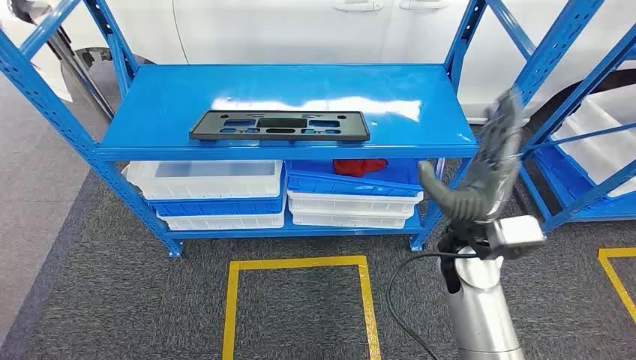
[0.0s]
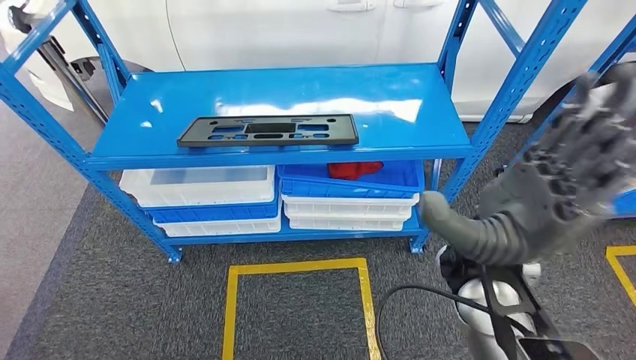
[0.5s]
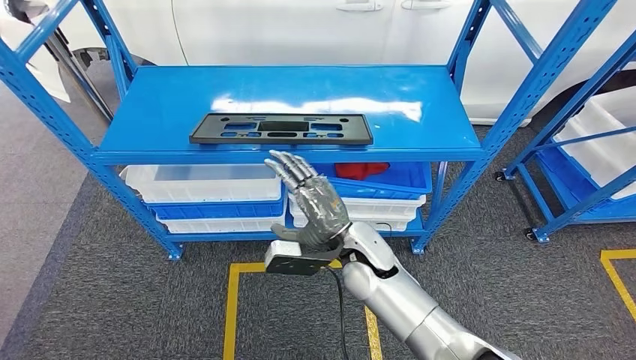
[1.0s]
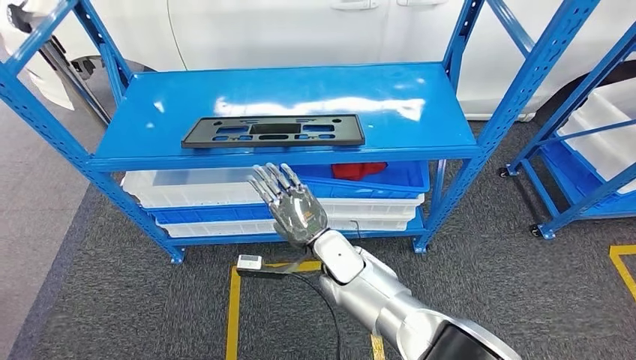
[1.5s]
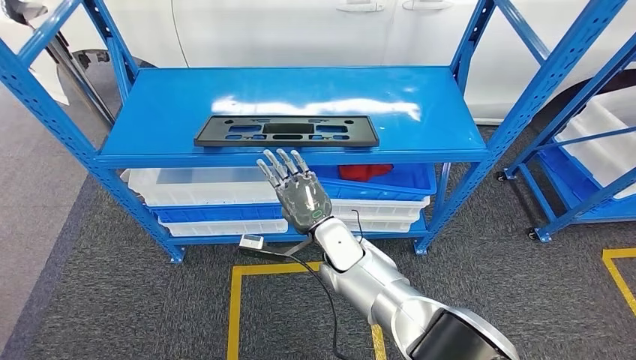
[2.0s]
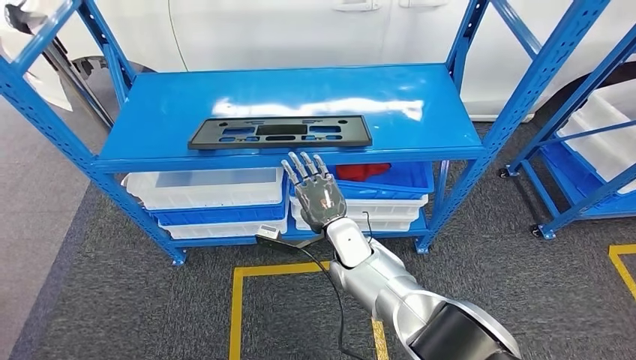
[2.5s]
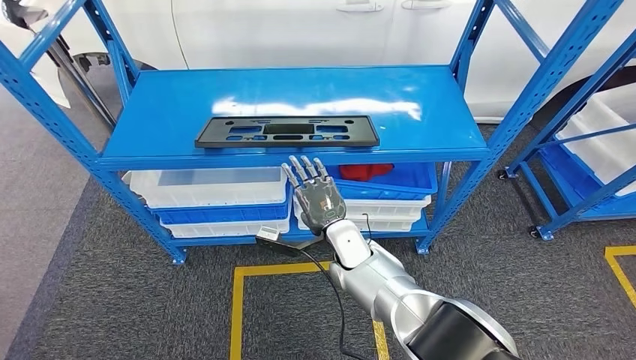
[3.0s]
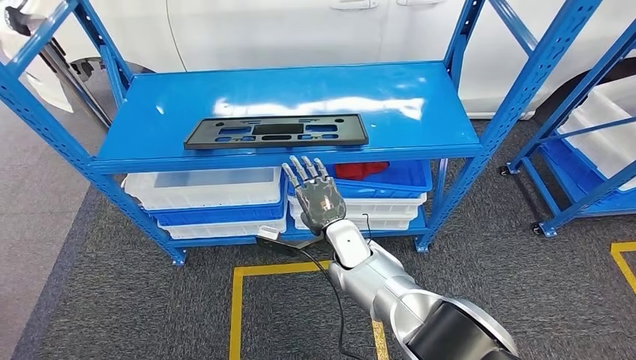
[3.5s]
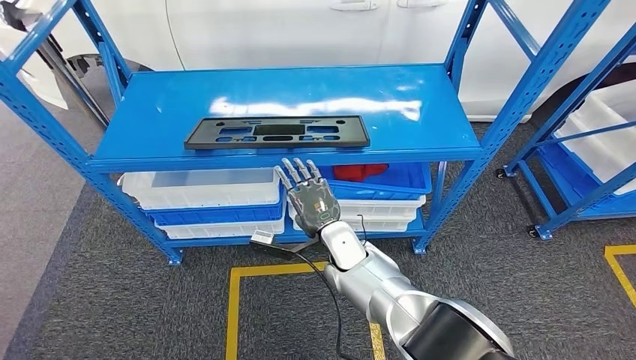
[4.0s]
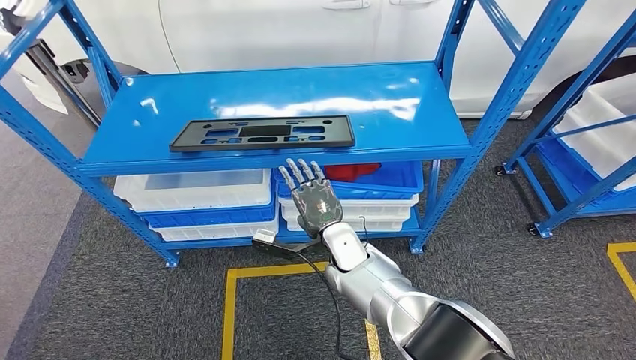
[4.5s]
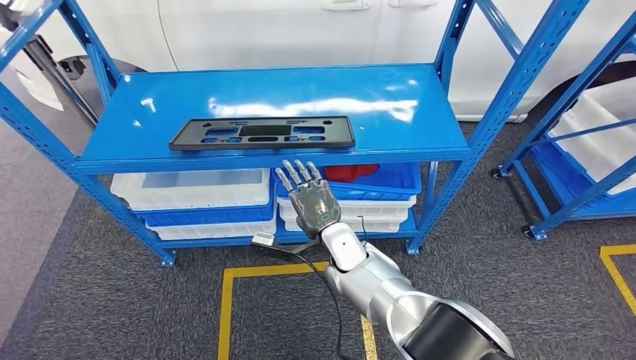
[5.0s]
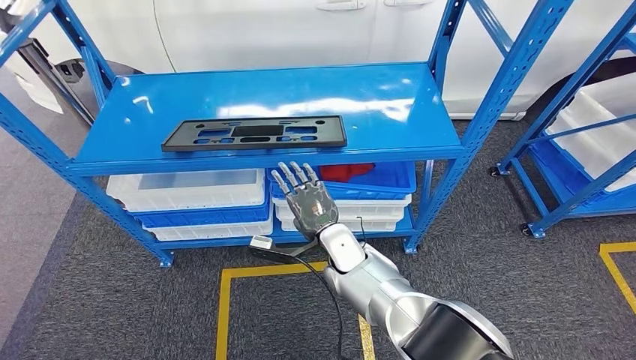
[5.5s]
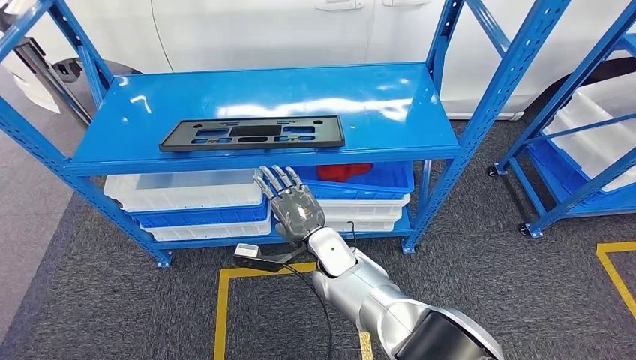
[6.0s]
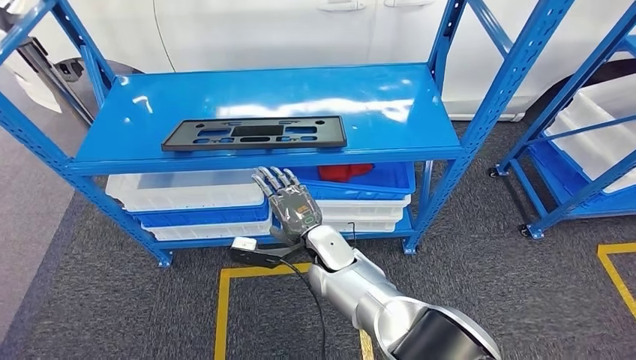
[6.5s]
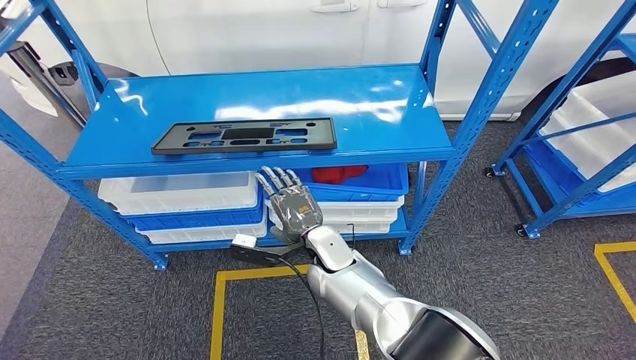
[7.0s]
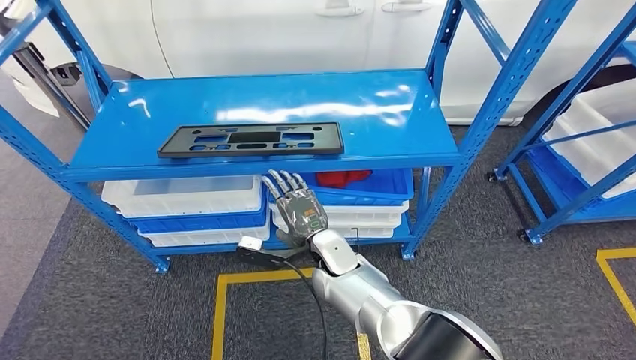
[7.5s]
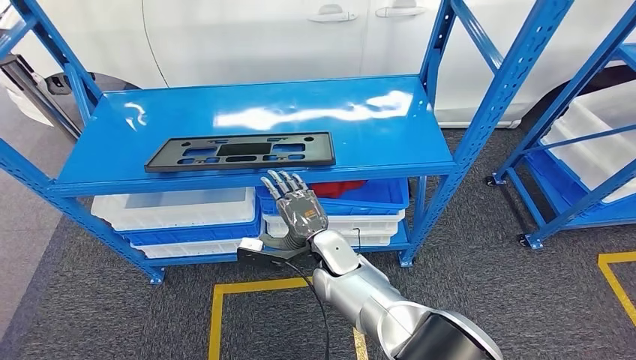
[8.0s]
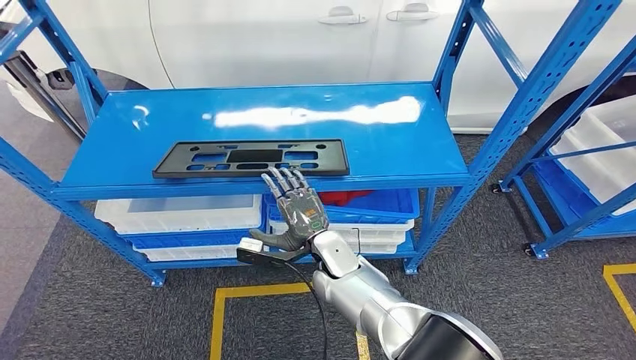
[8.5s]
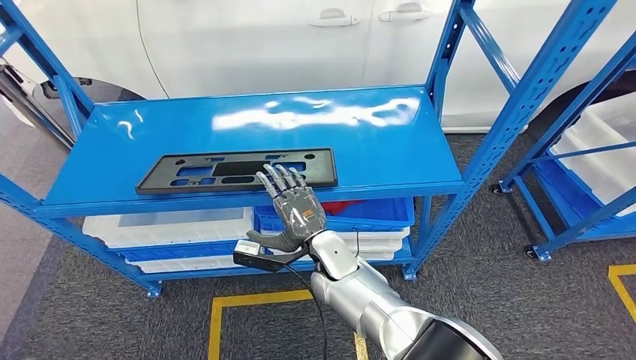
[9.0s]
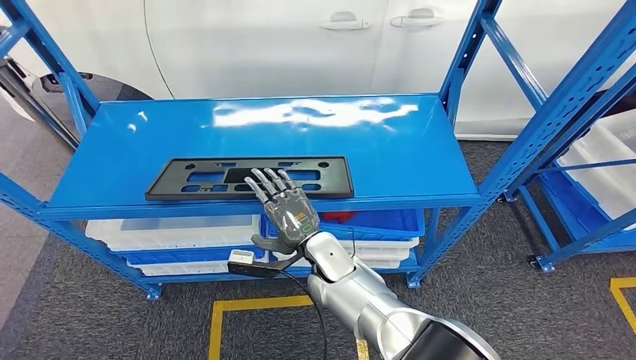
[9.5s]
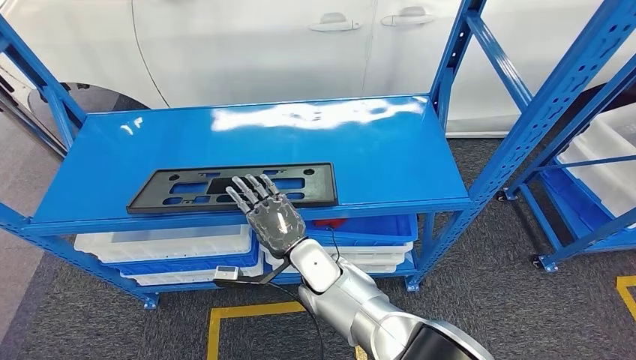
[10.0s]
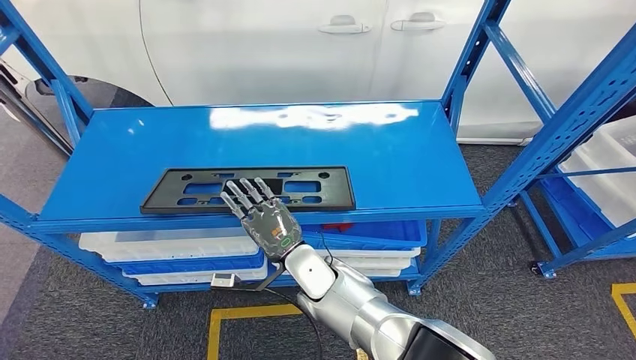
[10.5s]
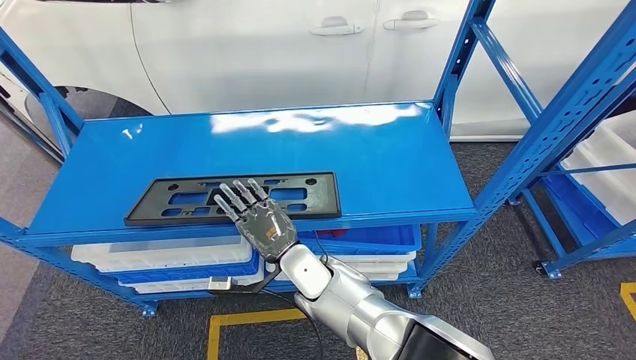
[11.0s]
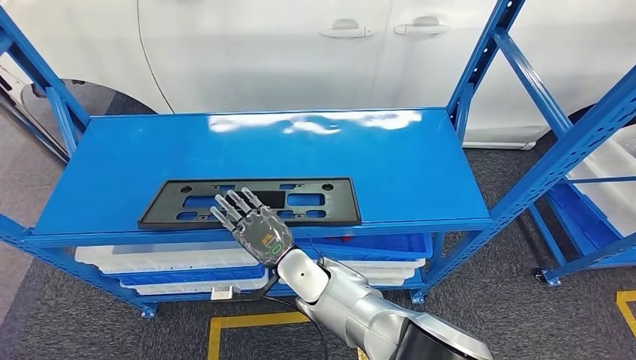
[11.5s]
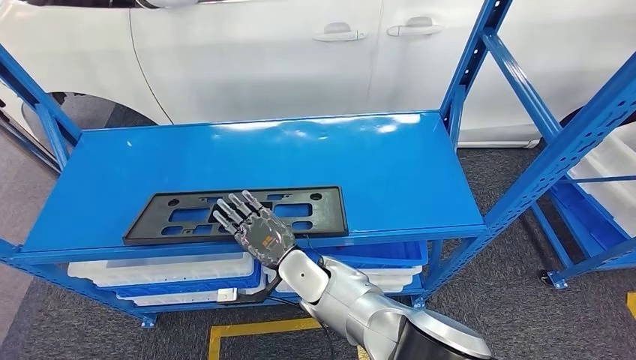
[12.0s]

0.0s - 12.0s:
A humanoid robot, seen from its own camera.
2.0s - 4.0s: There are only small adjustments of the hands.

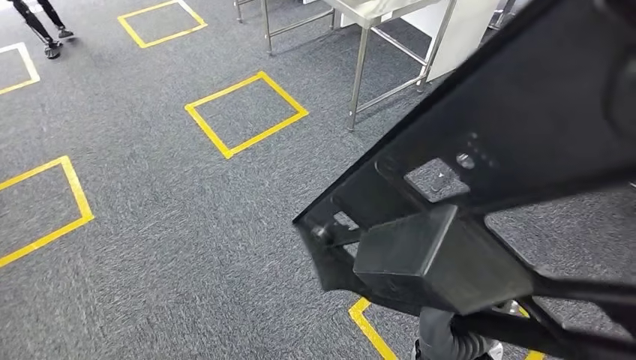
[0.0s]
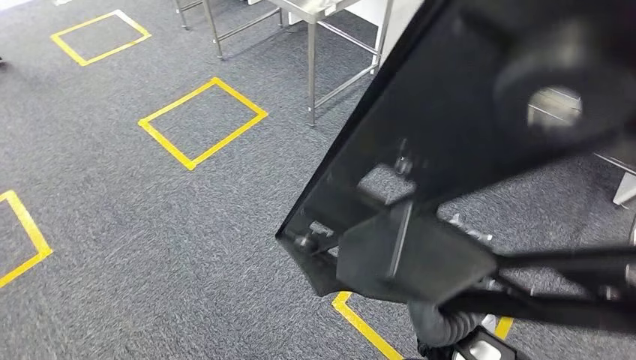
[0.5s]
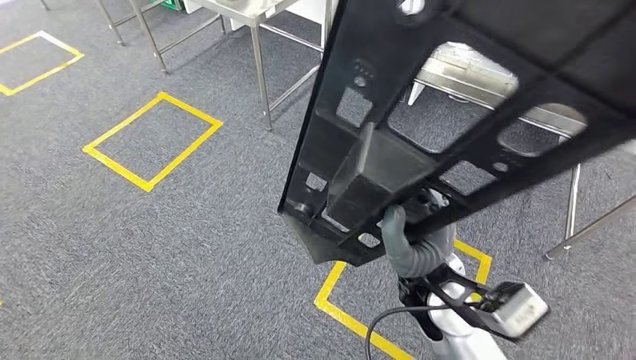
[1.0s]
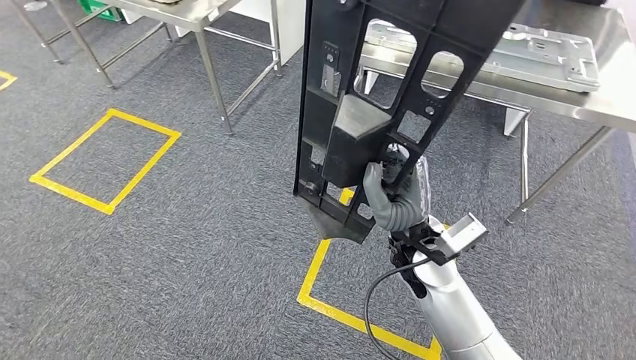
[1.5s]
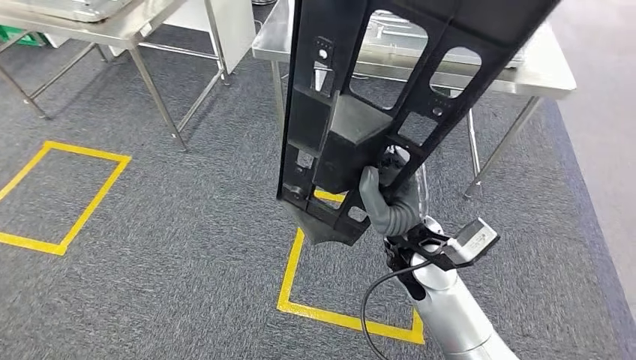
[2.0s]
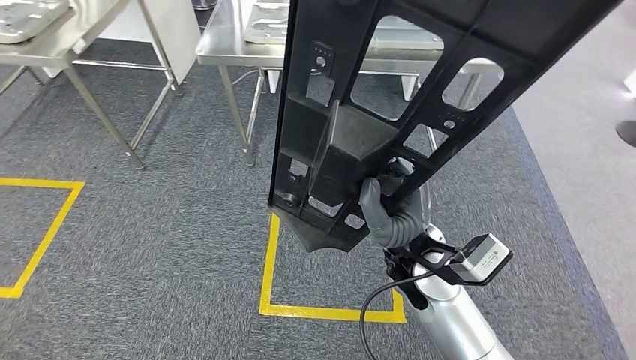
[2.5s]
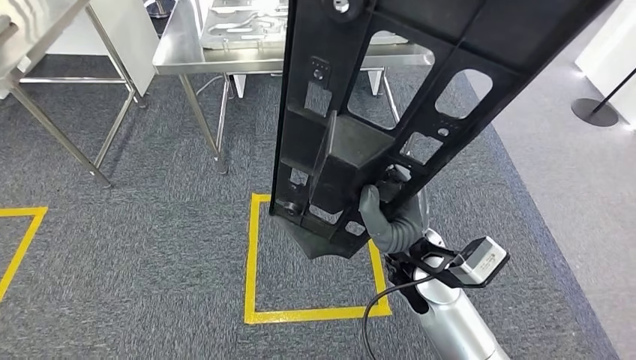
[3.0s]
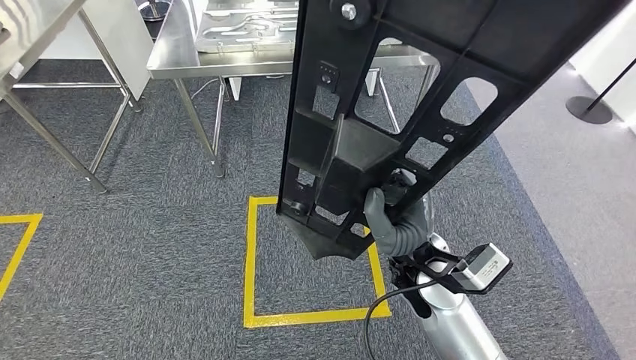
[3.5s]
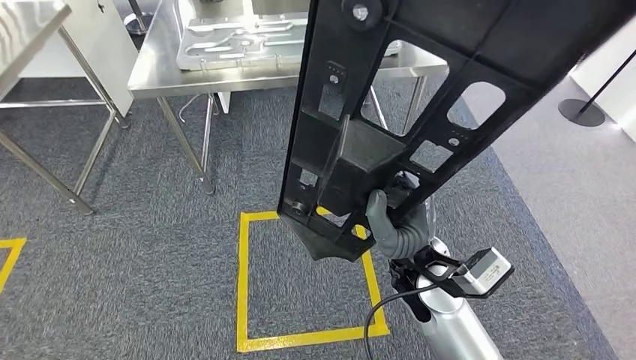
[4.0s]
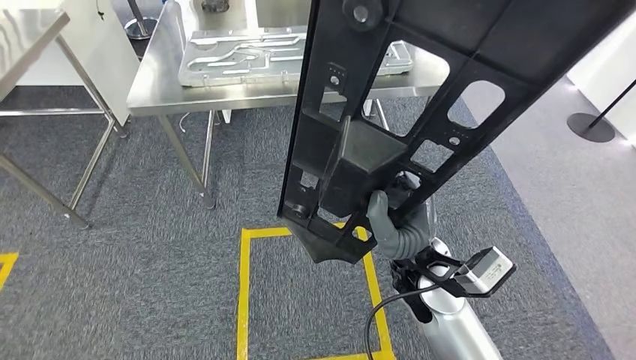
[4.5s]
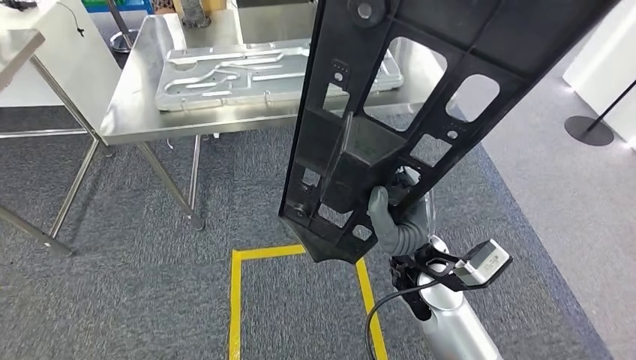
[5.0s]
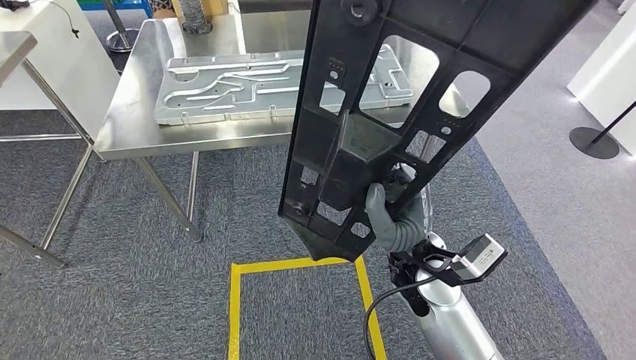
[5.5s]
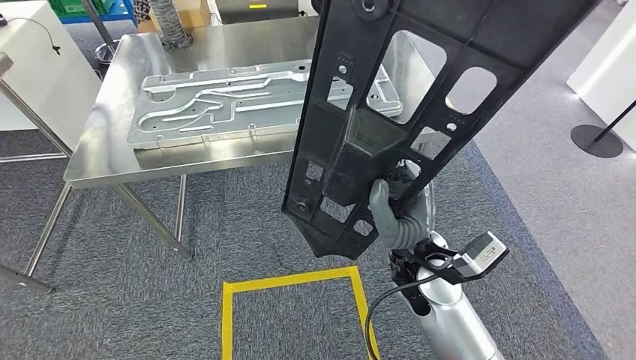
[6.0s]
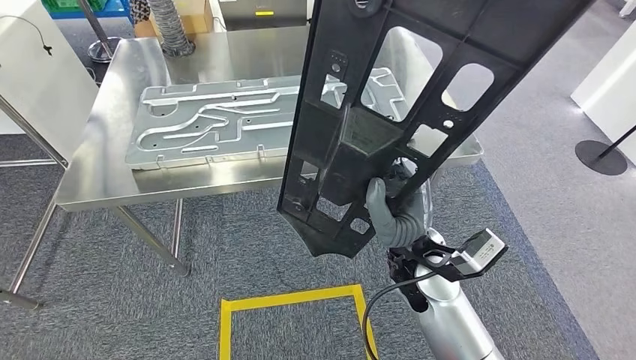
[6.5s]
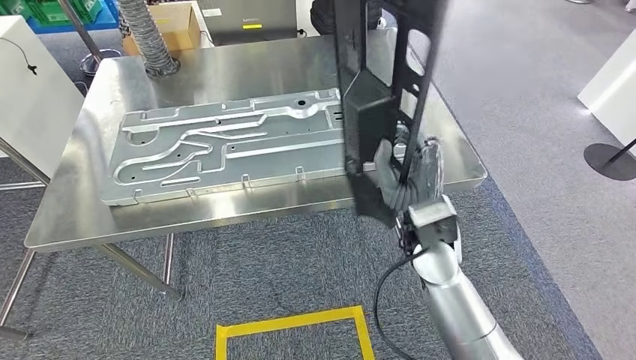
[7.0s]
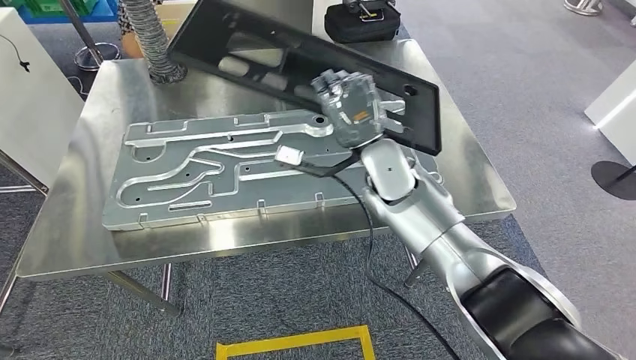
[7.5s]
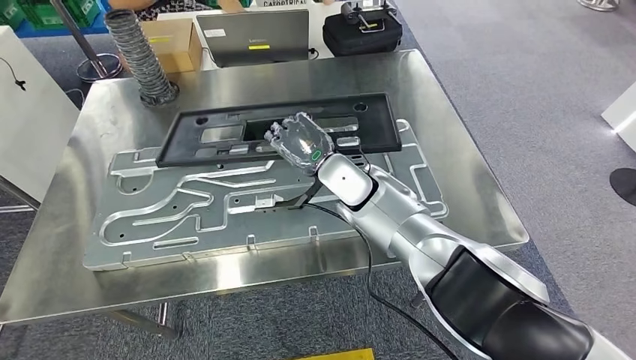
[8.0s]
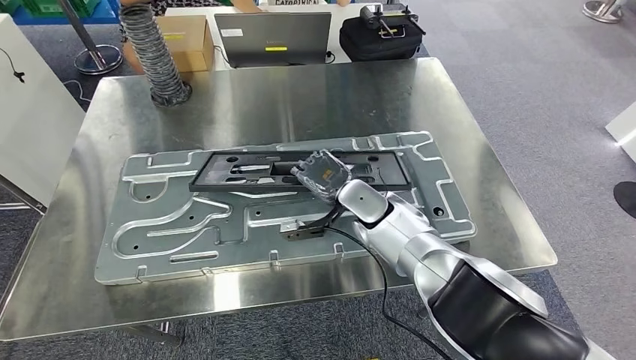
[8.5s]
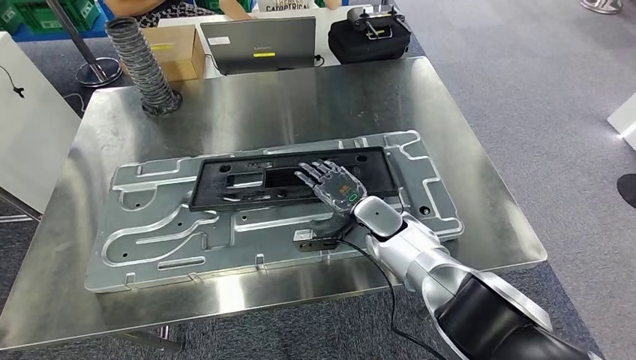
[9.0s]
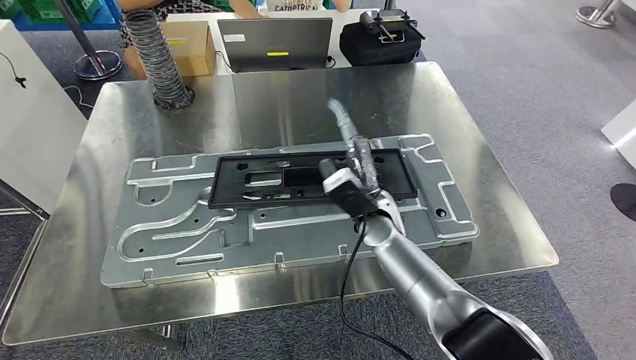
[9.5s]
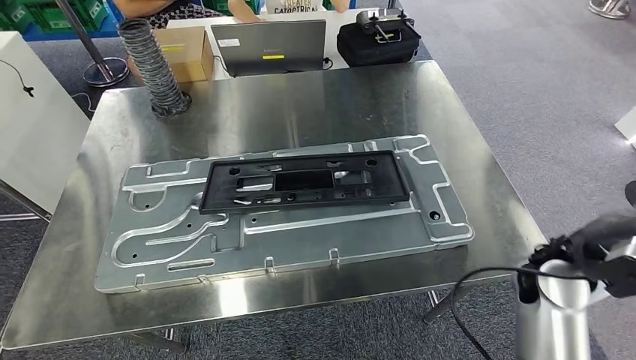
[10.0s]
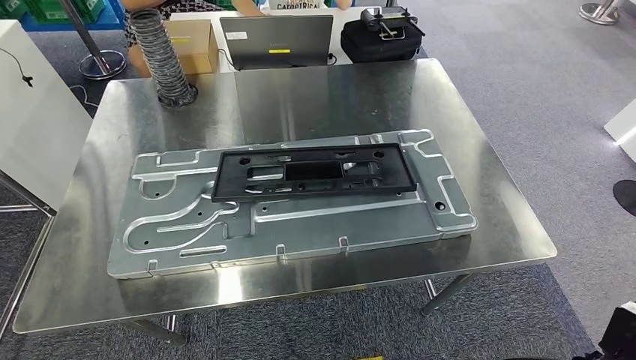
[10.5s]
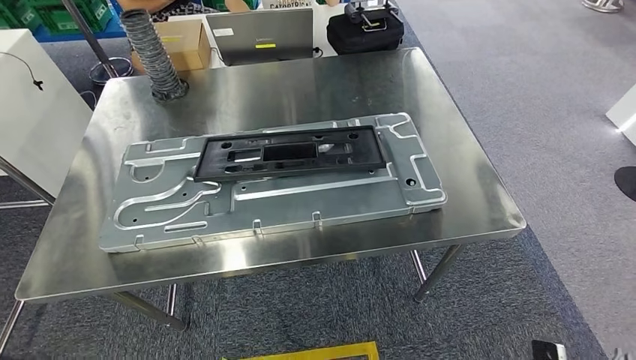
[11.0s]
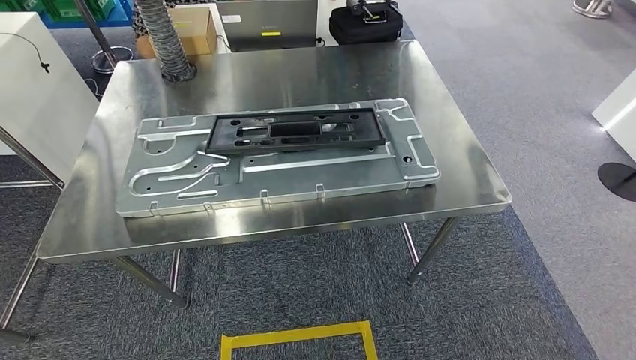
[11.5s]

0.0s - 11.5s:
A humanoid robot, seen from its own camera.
Step, 0.0s - 7.5s: Move the large material to the workbench.
Step, 8.0s - 10.5s: Insert the large material into the corresponding slot on the workbench.
